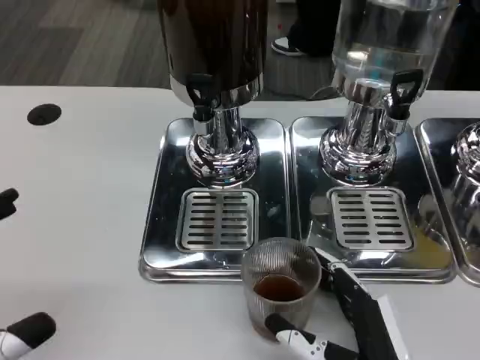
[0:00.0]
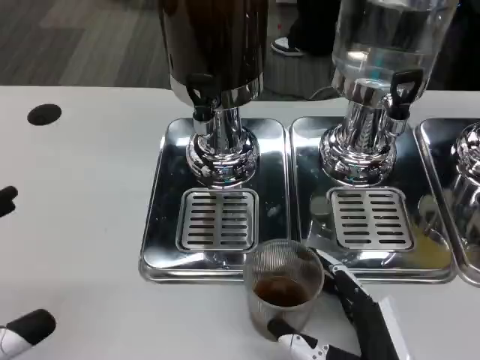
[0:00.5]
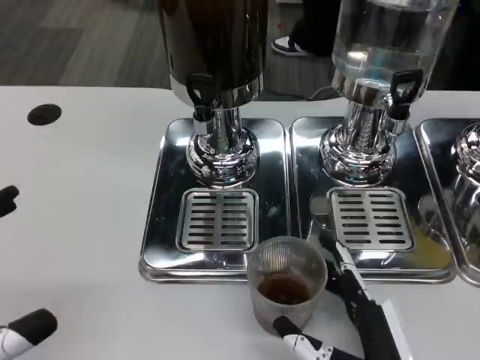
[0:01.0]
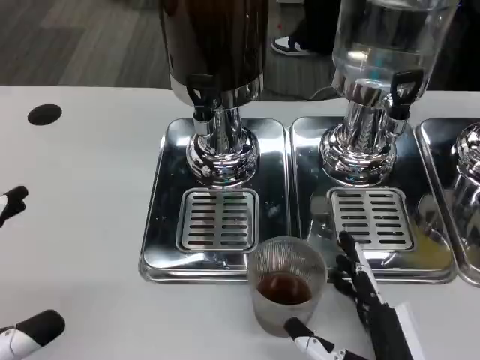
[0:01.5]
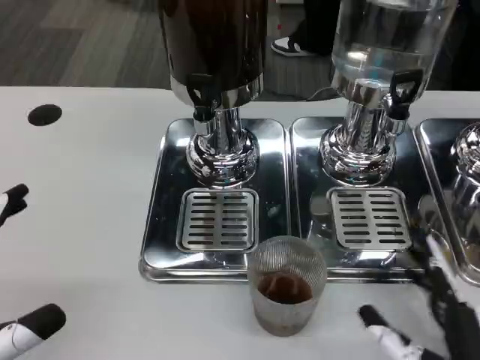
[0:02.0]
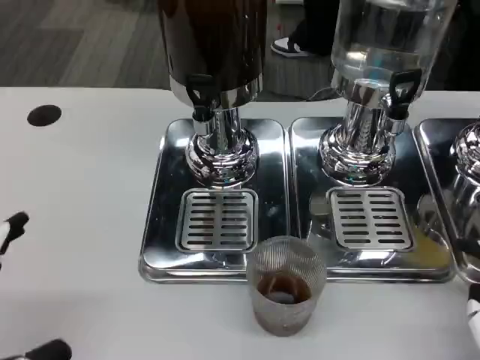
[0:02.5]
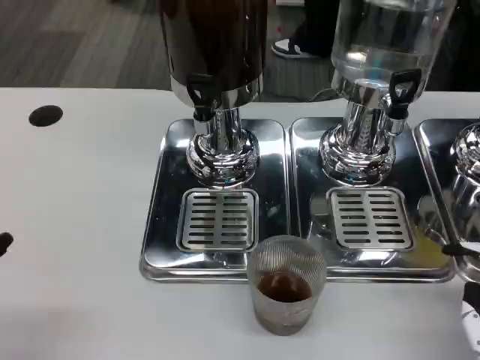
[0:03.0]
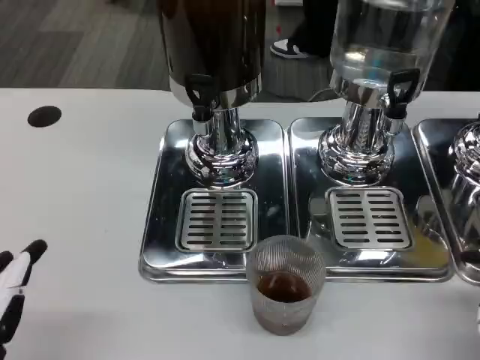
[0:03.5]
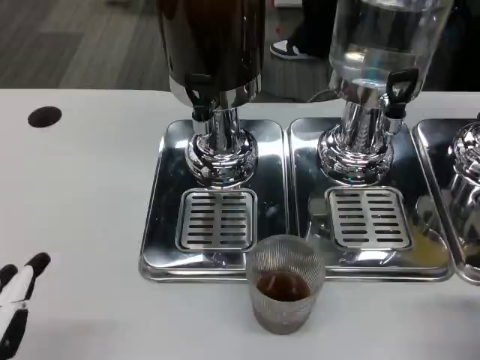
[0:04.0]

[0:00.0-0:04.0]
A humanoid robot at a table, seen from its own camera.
Task of the whole recording: Grasp the cup under the faucet to collect the drink, then remove the cup.
0:00.0 to 0:02.0: The right hand moves to the right, approximately 5 cm.
0:02.0 to 0:04.0: The right hand heads to the right and upward, covering some 5 cm. The left hand heads downward and backward, covering some 5 cm.

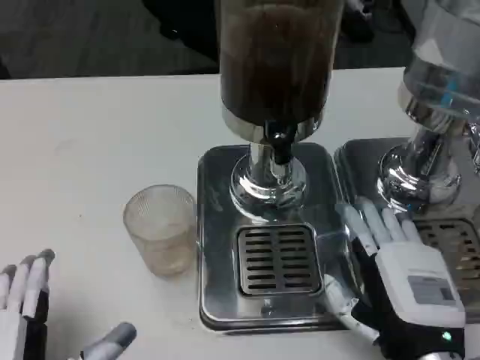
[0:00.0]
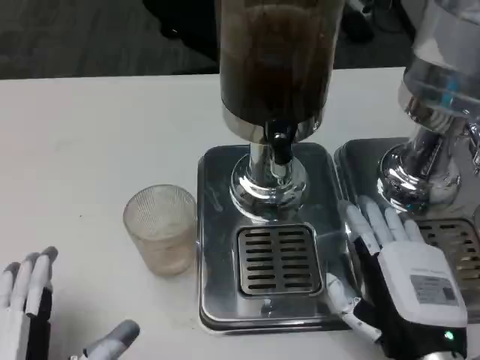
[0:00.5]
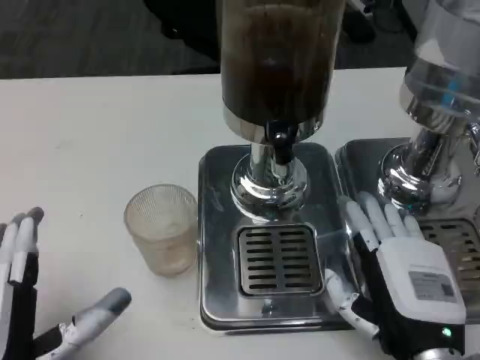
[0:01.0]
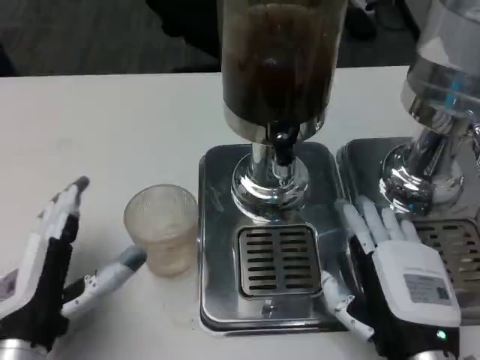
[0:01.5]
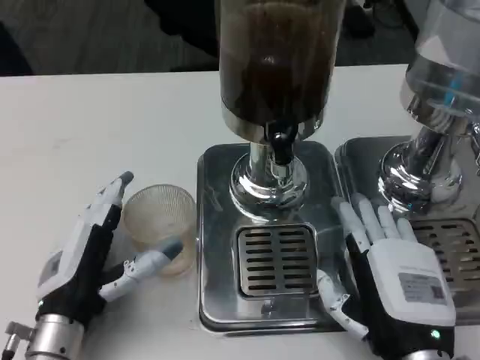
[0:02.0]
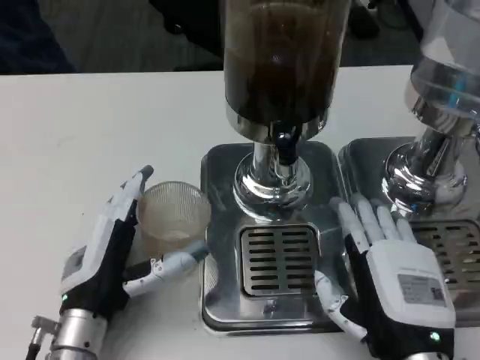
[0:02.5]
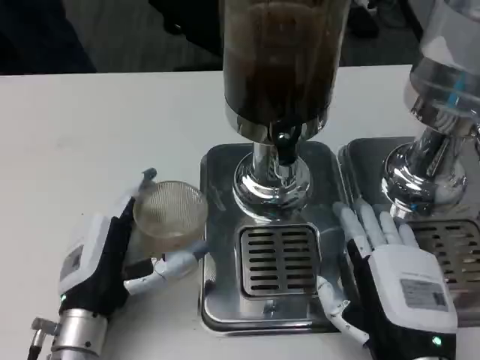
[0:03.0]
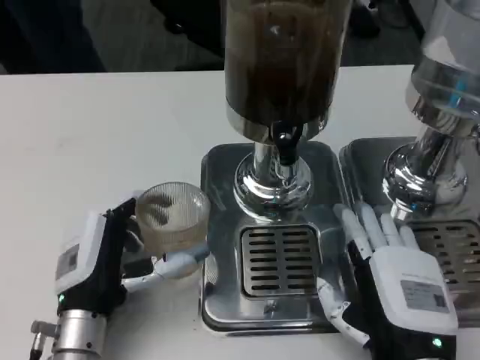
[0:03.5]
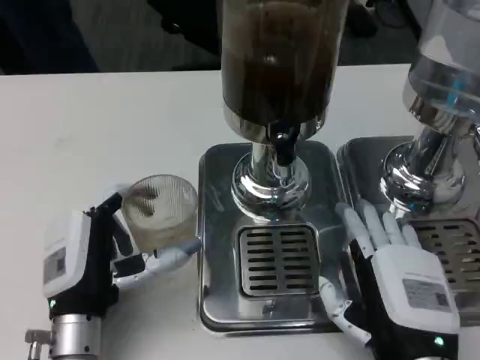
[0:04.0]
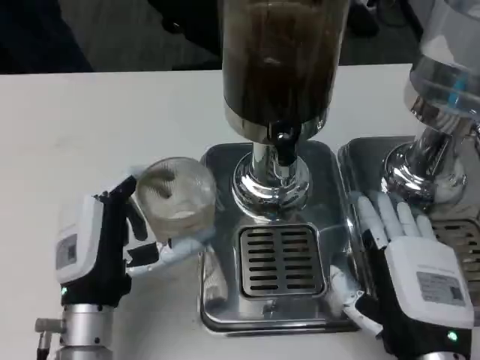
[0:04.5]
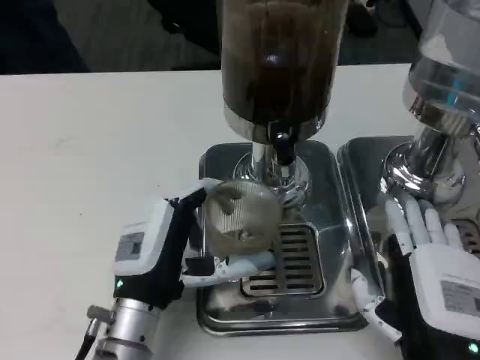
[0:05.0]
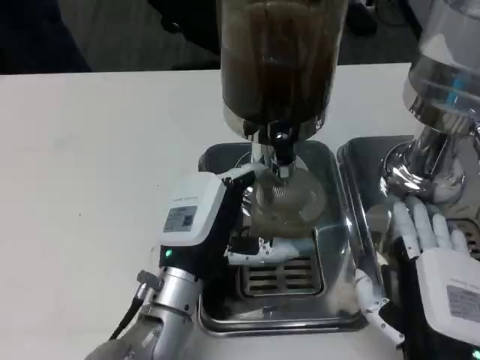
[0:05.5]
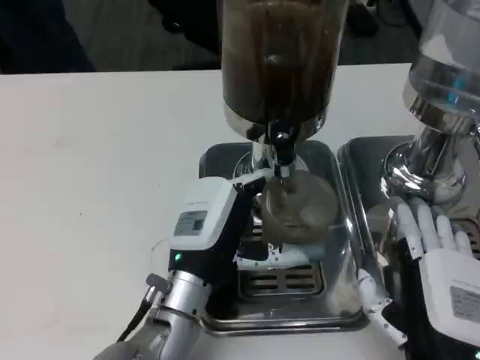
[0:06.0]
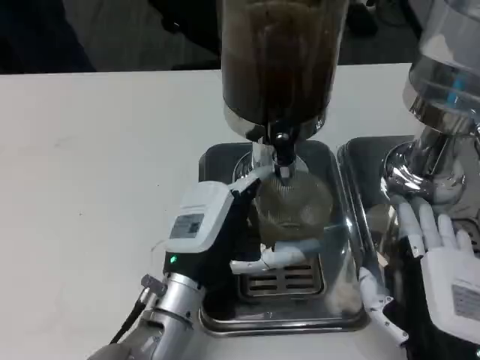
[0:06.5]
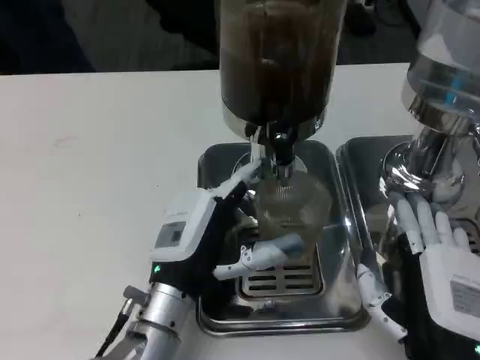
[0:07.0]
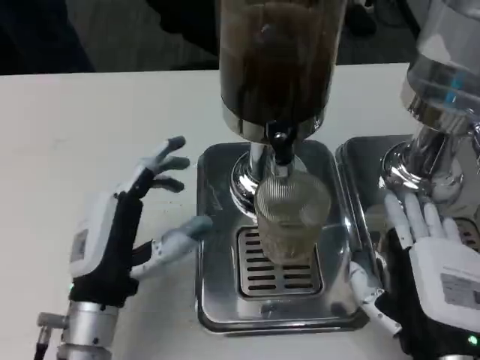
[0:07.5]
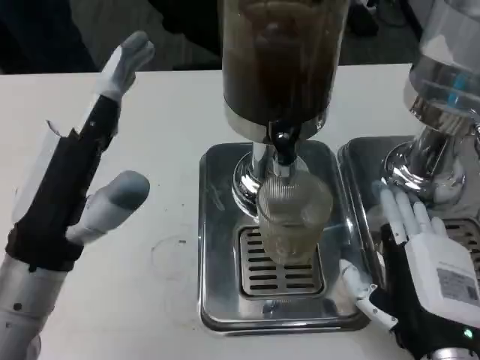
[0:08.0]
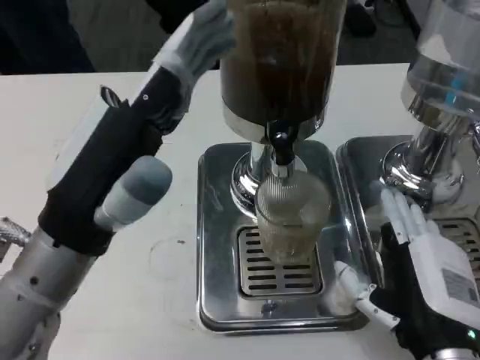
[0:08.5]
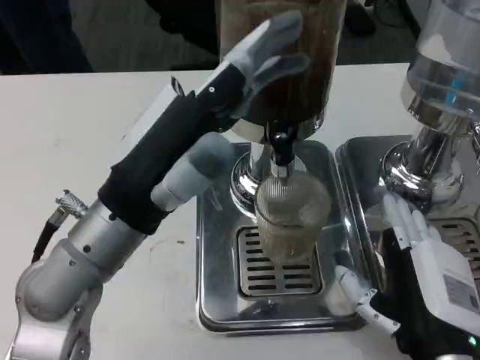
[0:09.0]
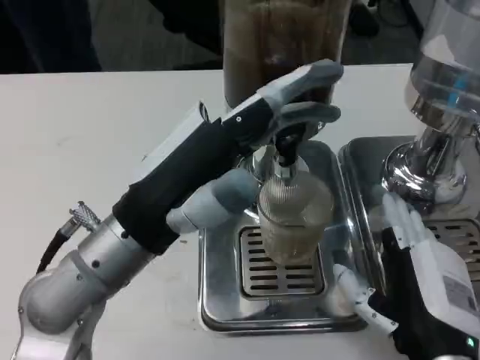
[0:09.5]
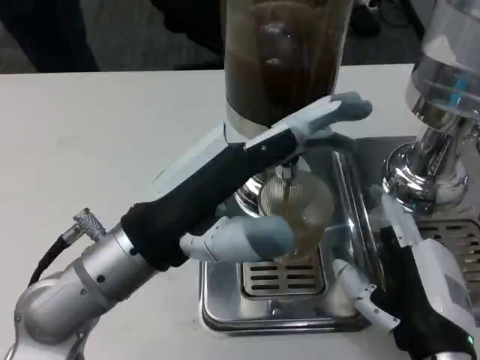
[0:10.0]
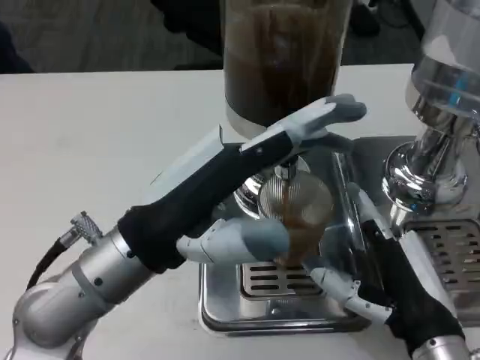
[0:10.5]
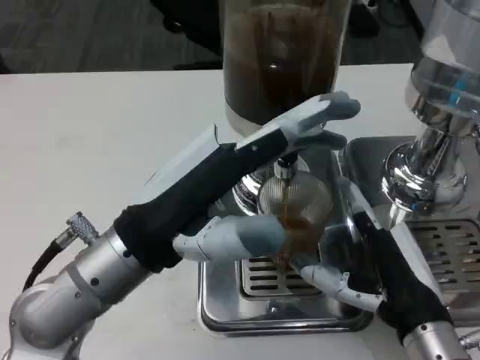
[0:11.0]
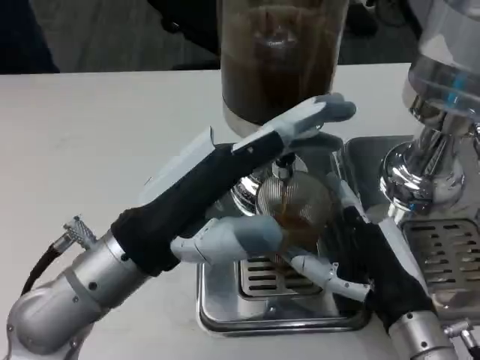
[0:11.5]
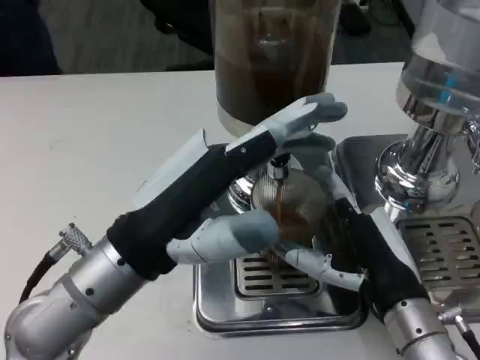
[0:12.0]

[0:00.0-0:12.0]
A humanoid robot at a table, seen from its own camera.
Task of the whole recording: Grasp the cup under the faucet to collect the drink, then remove the cup.
0:00.0 to 0:02.0: The left hand moves forward, some 10 cm.
0:02.0 to 0:04.0: The hands move only a little.
0:04.0 to 0:06.0: The left hand shifts approximately 10 cm to the right.
0:06.0 to 0:08.0: The left hand is displaced to the left and upward by some 15 cm.
0:08.0 to 0:10.0: The left hand goes approximately 5 cm to the right.
0:10.0 to 0:12.0: The right hand heads forward, covering approximately 5 cm.

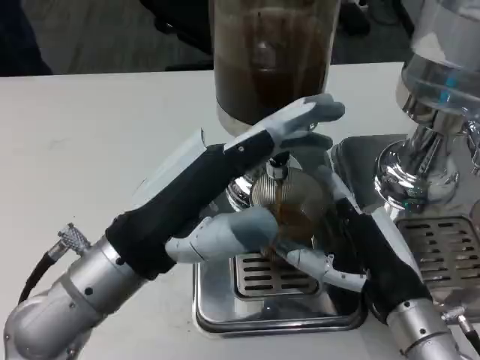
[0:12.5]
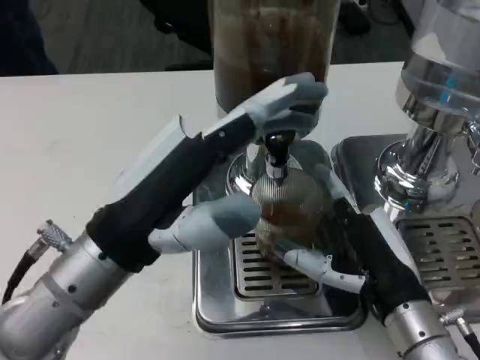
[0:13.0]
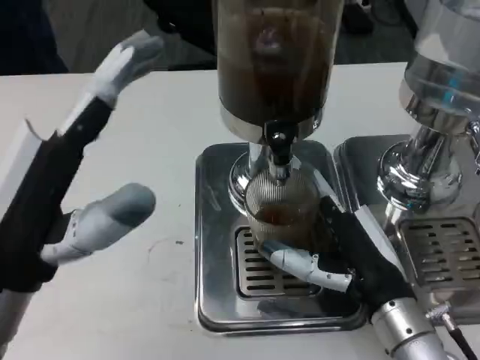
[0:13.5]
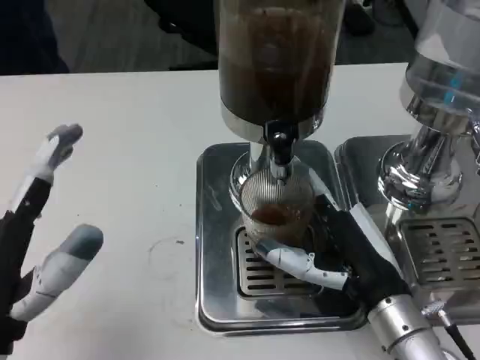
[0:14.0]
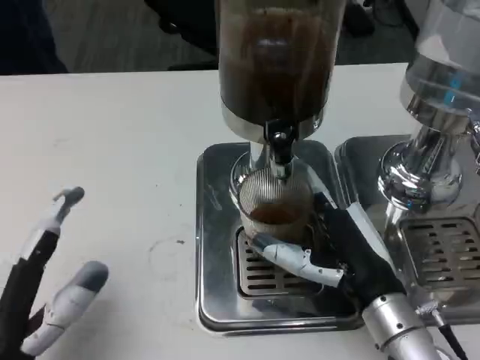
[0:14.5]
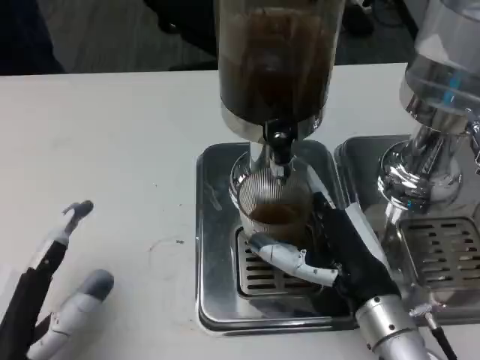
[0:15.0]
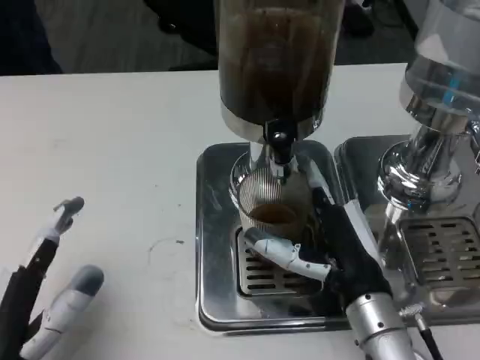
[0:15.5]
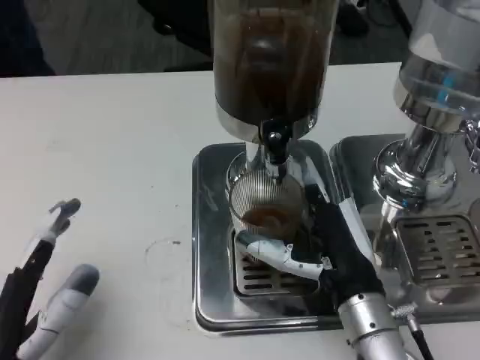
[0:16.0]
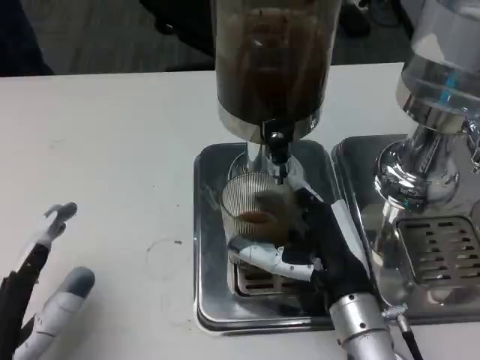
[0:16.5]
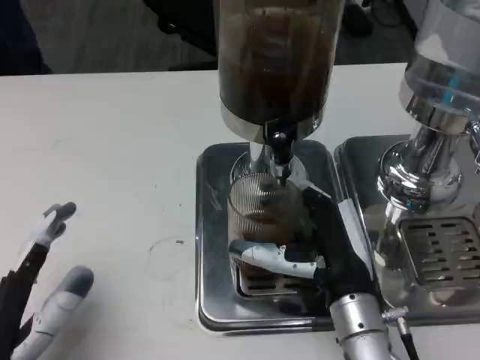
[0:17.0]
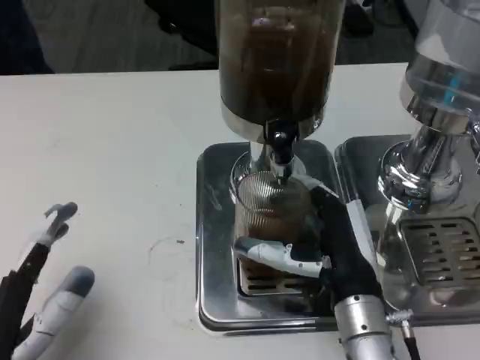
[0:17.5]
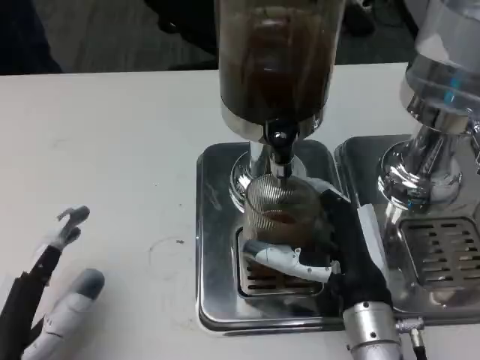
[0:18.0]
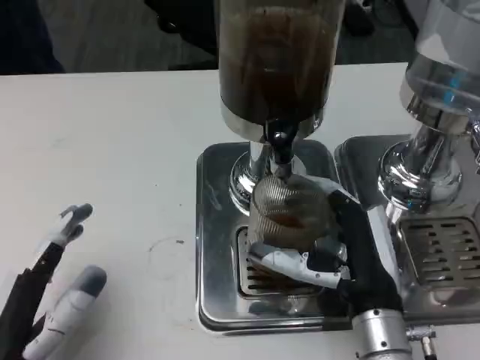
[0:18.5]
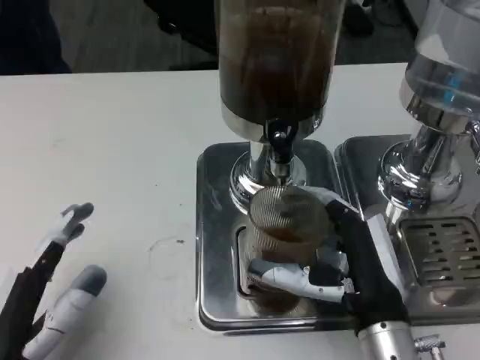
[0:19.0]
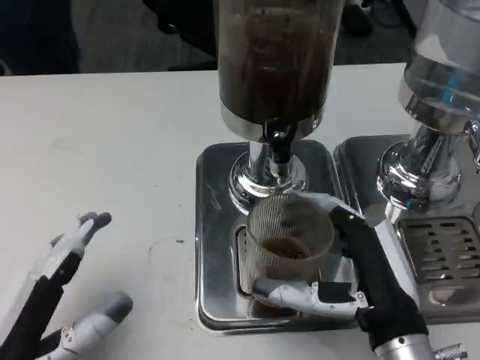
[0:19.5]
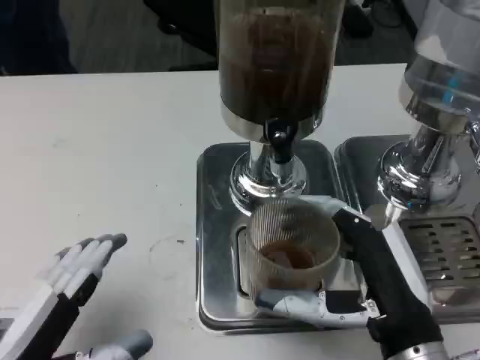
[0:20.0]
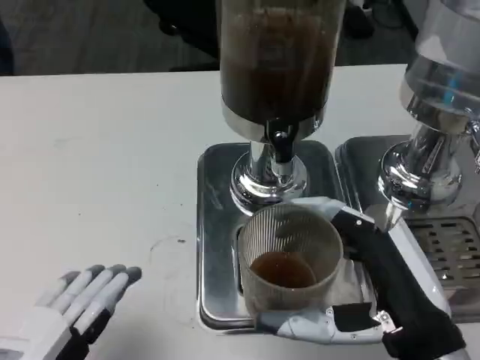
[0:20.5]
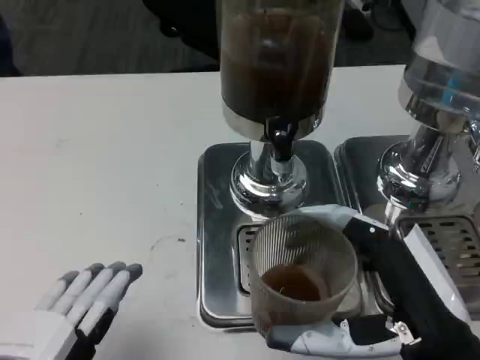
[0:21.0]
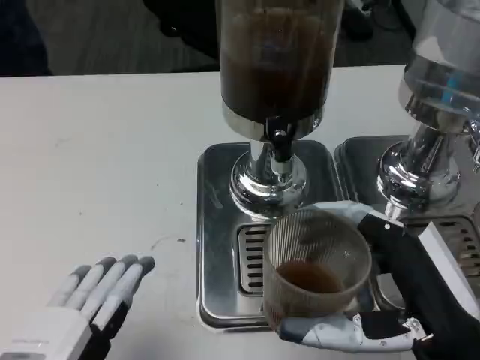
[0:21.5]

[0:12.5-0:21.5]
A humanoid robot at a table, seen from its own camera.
Task of the whole recording: Grasp the cup under the faucet to collect the drink, then remove the cup.
0:12.5 to 0:14.5: The left hand shifts approximately 15 cm downward, backward and to the left.
0:14.5 to 0:17.0: There are only small adjustments of the hands.
0:17.0 to 0:19.5: The right hand goes approximately 5 cm backward.
0:19.5 to 0:21.5: The left hand moves approximately 5 cm. The right hand travels upward by roughly 5 cm.
